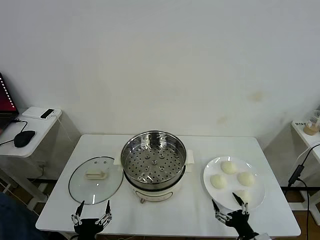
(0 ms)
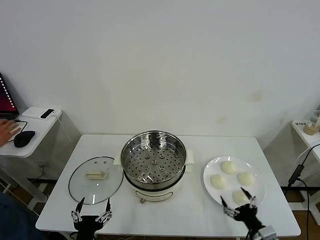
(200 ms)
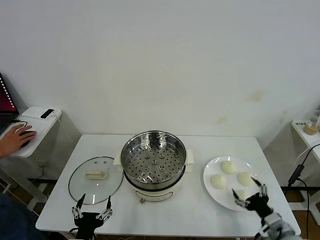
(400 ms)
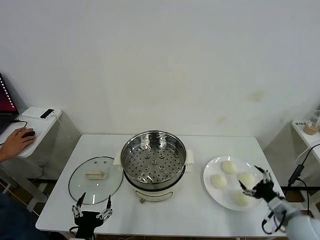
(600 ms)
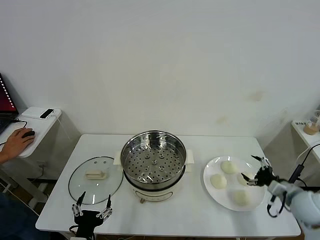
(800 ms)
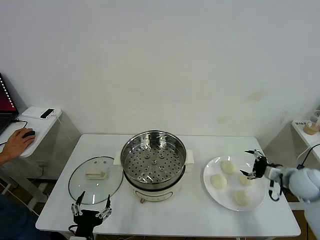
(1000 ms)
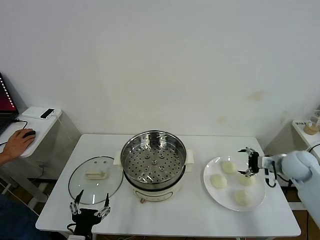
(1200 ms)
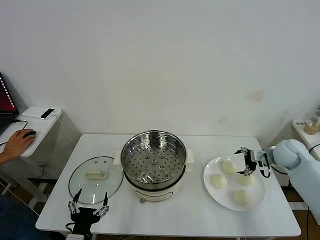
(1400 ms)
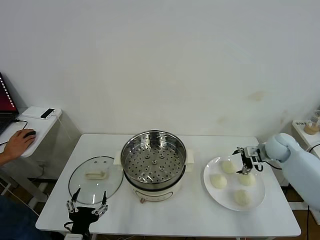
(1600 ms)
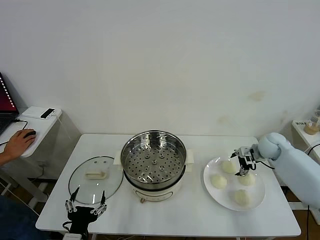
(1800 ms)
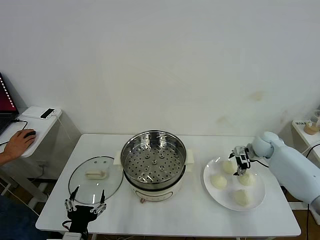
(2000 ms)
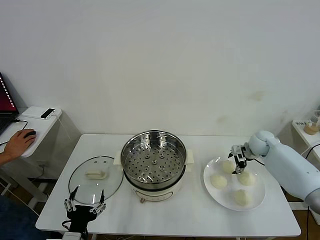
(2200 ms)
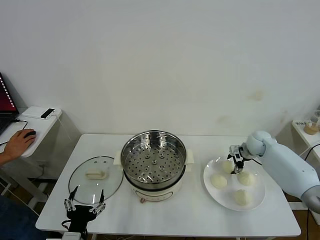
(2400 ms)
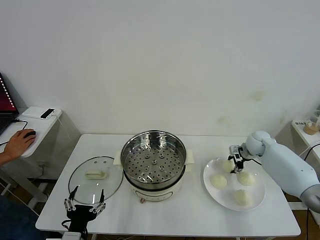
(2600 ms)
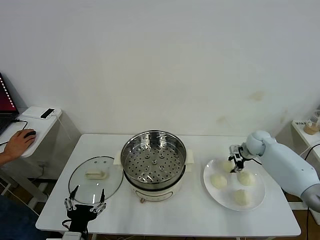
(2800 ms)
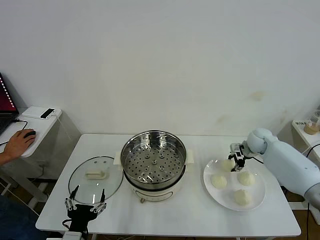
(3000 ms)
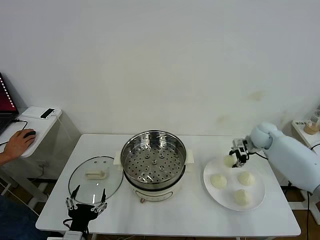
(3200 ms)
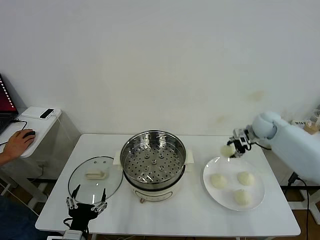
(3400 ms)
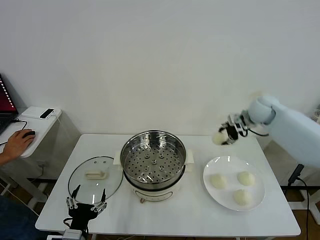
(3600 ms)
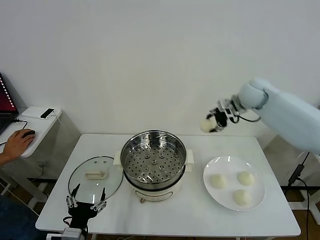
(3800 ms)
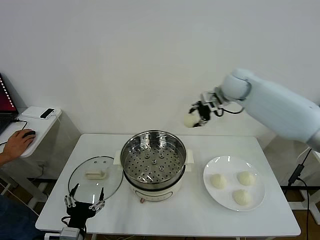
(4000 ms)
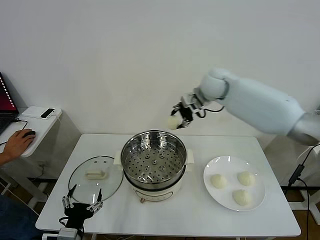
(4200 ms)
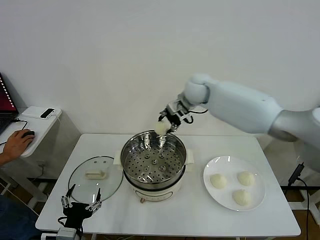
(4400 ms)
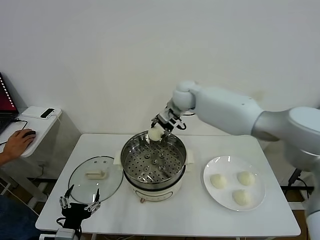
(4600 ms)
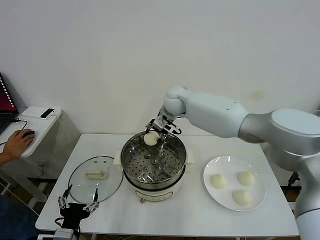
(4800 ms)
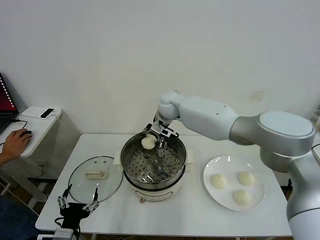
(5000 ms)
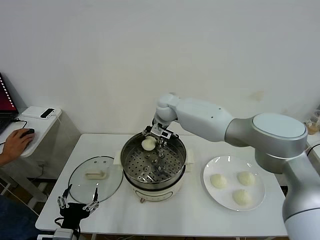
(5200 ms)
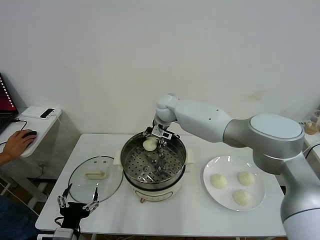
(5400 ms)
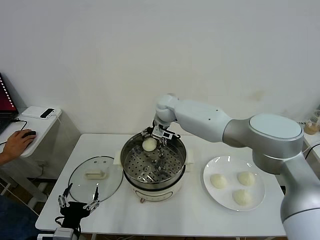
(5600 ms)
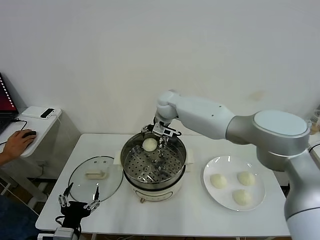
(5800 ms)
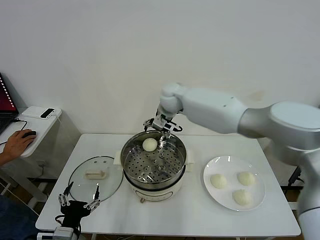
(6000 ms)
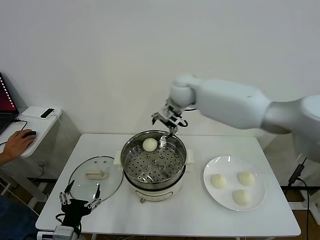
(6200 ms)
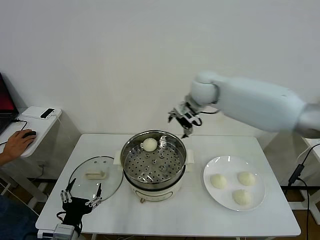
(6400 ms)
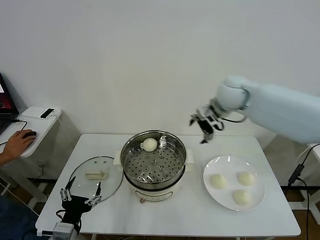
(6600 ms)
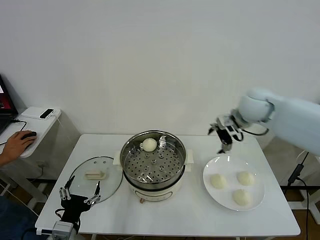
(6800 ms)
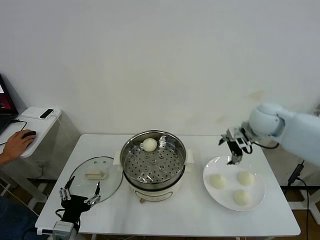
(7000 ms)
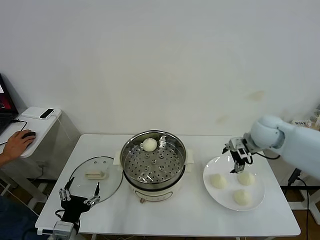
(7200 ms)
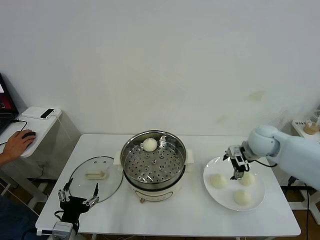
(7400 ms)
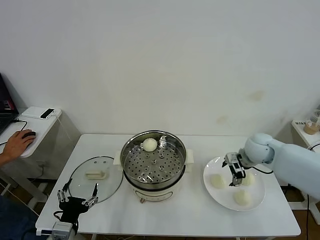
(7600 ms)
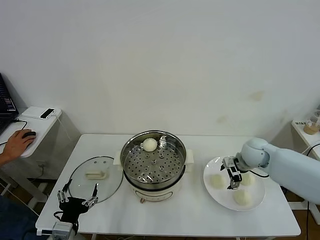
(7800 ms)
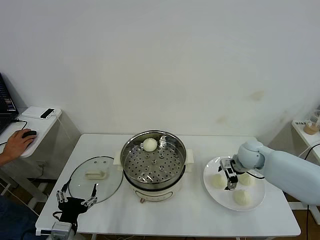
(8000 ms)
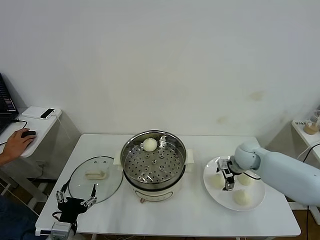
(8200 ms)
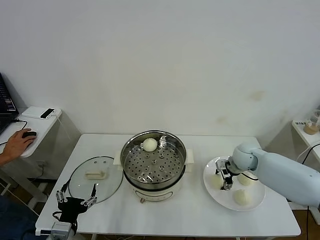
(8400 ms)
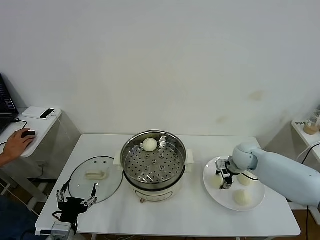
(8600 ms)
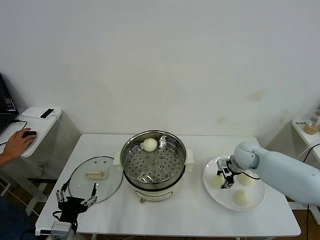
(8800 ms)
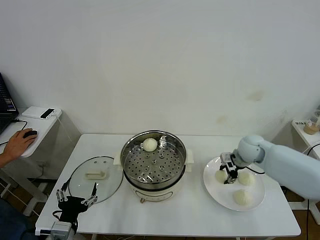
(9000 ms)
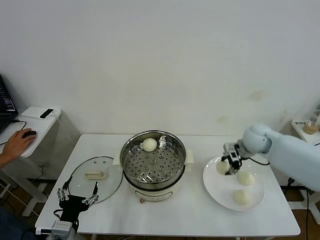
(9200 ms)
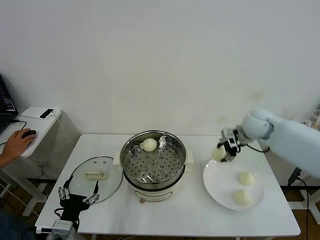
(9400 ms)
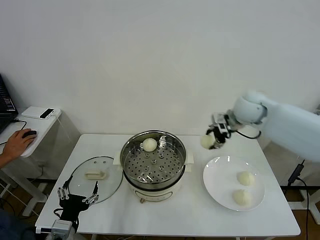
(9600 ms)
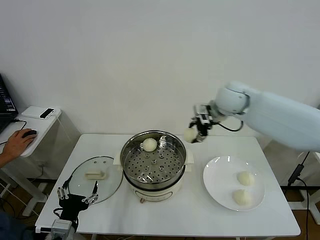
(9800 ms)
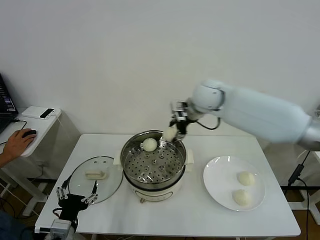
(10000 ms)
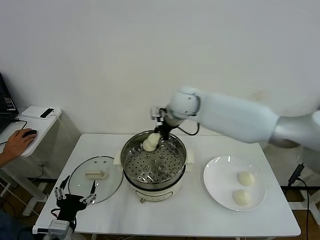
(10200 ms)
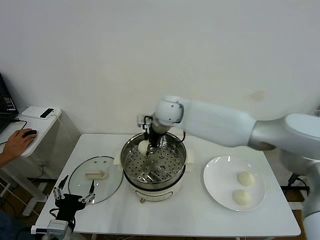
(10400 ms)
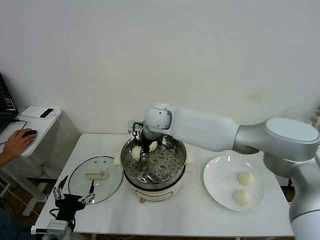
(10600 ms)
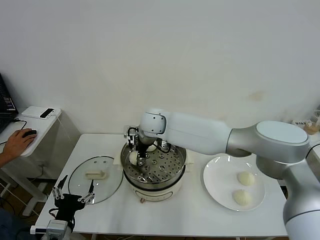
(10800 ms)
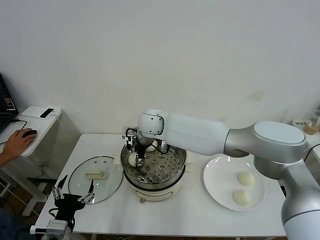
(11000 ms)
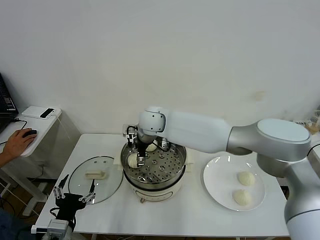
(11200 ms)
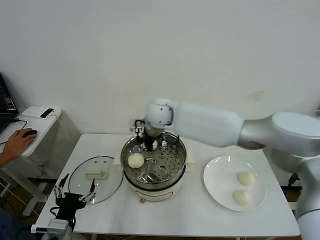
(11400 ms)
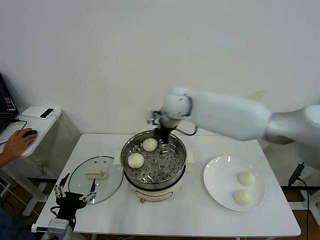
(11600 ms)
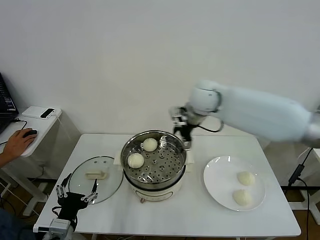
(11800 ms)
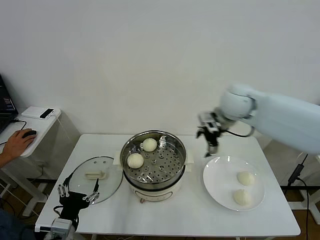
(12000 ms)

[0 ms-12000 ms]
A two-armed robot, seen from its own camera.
Task of the whole recording: take steamed baozi put them in steamer then cover it.
Step, 0 ms to 2800 ms: Grasp the baozi in the plate with right gripper.
Step, 3000 ms to 5600 ms: Place the baozi on the steamer with right gripper.
Step, 5800 ms to 8600 ms: Grasp the baozi in the plate with right gripper.
Step, 8800 ms to 11200 ms: Place the baozi on the steamer with right gripper.
1600 ms to 3000 ms: The right gripper goes roughly 5 cm forward, and closes its fingers.
3000 ms to 4400 ms: The right gripper shifts some 35 cm to the left and upward.
4400 ms to 6000 ms: The right gripper heads to the left, covering some 10 cm, and opens.
6000 ms to 7600 ms: The right gripper travels to the right and backward by roughly 30 cm.
7600 ms to 9000 ms: The right gripper closes.
9000 ms to 10400 ms: The right gripper goes roughly 35 cm to the left and upward.
10400 ms to 12000 ms: The right gripper is displaced to the right by roughly 20 cm, and opens.

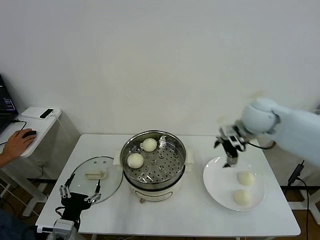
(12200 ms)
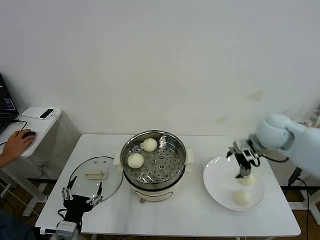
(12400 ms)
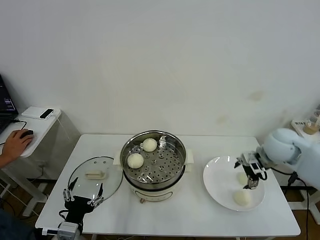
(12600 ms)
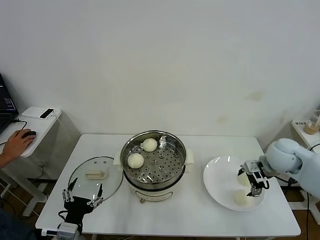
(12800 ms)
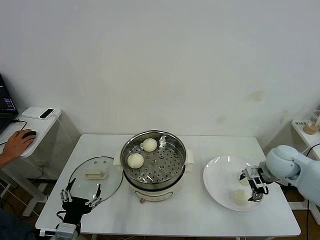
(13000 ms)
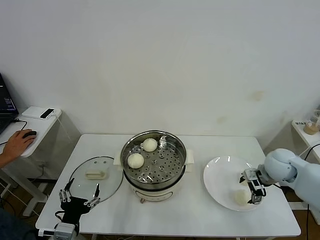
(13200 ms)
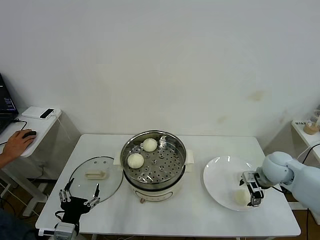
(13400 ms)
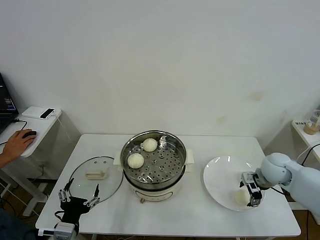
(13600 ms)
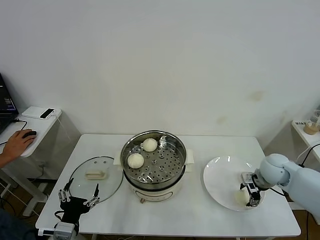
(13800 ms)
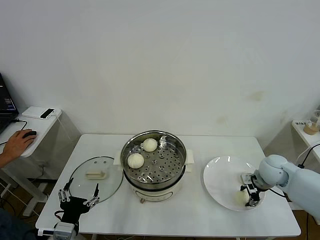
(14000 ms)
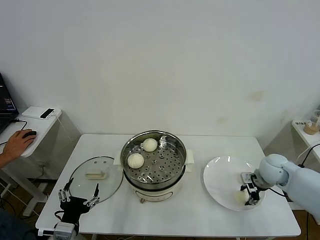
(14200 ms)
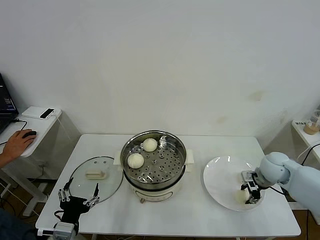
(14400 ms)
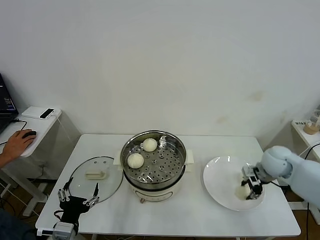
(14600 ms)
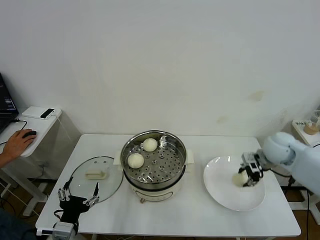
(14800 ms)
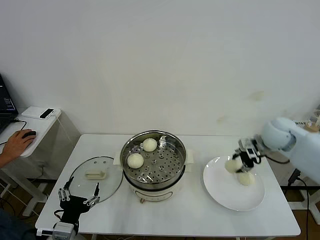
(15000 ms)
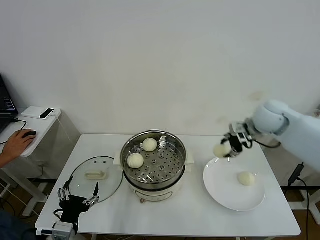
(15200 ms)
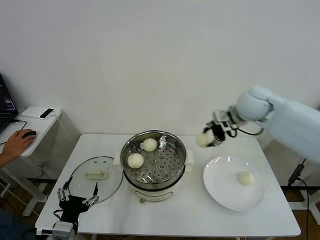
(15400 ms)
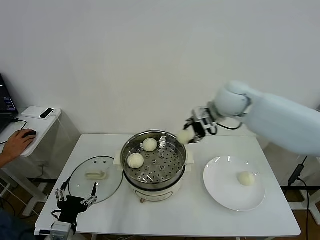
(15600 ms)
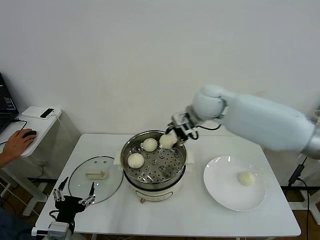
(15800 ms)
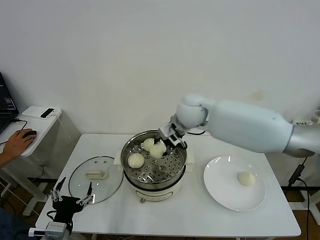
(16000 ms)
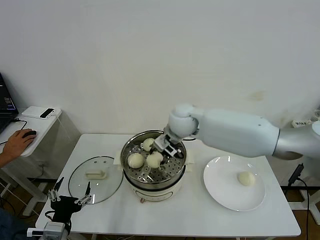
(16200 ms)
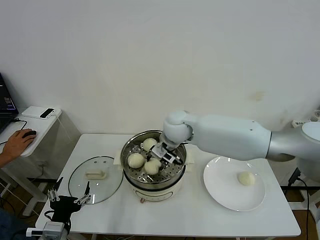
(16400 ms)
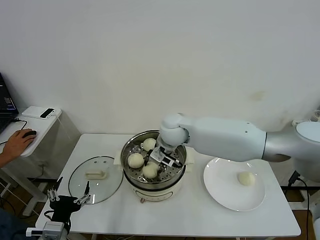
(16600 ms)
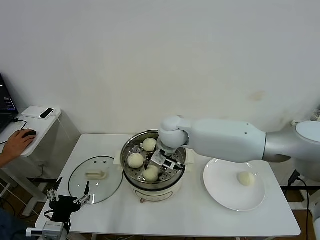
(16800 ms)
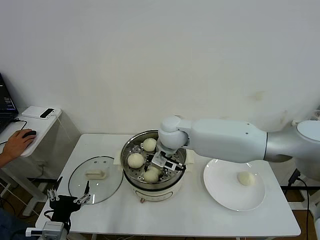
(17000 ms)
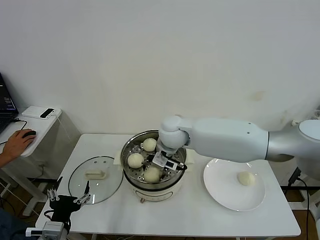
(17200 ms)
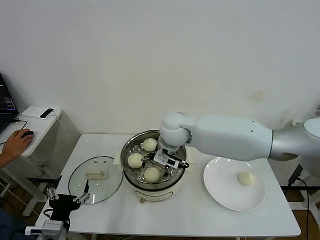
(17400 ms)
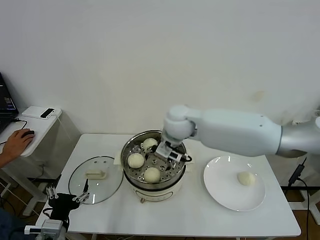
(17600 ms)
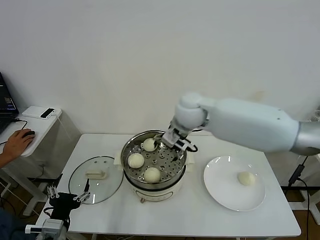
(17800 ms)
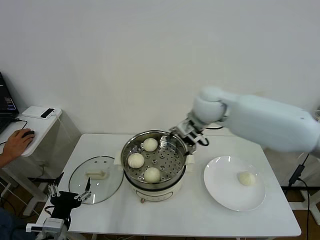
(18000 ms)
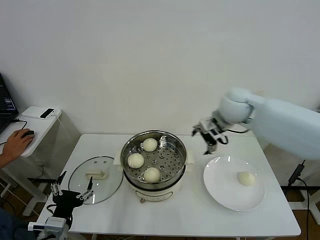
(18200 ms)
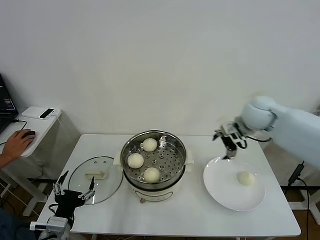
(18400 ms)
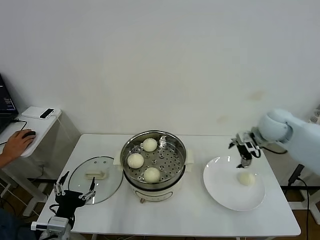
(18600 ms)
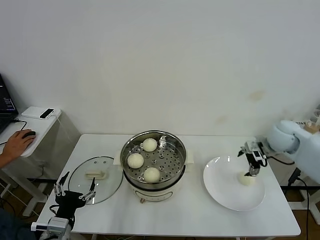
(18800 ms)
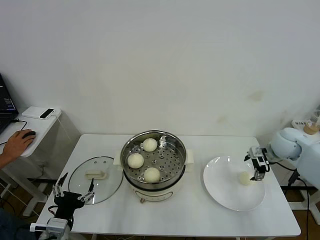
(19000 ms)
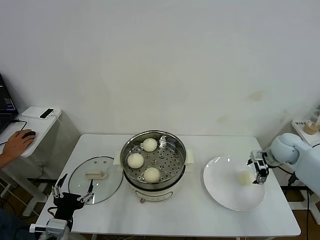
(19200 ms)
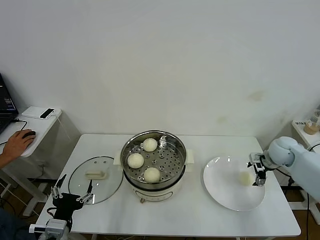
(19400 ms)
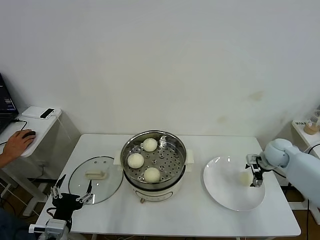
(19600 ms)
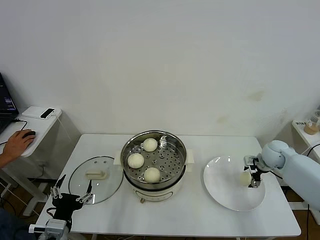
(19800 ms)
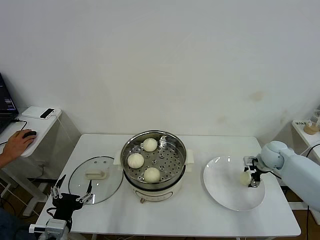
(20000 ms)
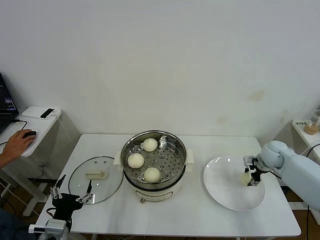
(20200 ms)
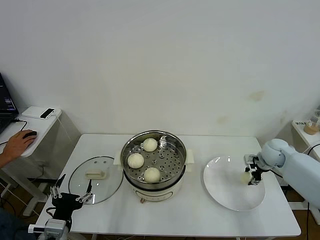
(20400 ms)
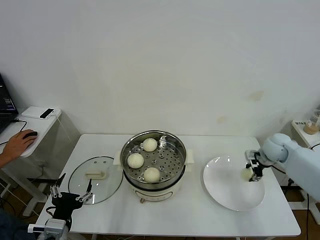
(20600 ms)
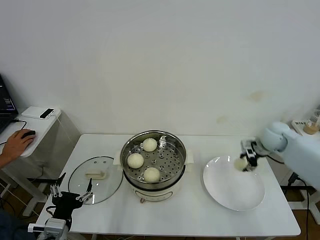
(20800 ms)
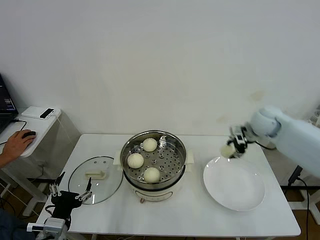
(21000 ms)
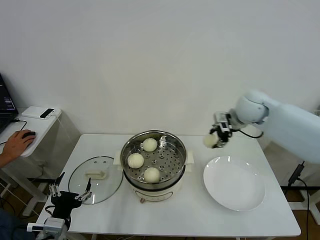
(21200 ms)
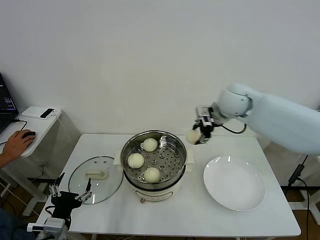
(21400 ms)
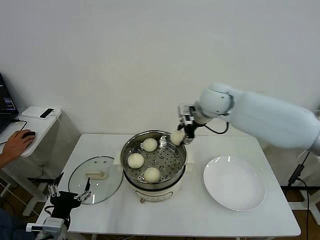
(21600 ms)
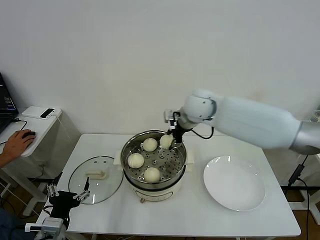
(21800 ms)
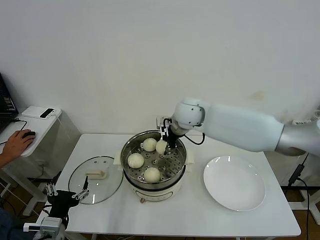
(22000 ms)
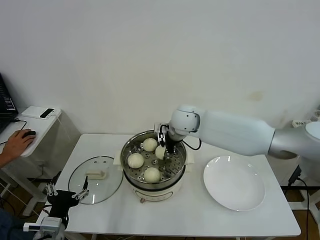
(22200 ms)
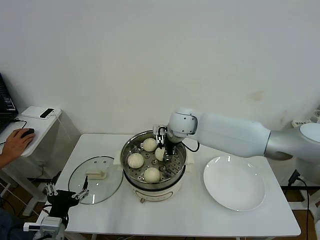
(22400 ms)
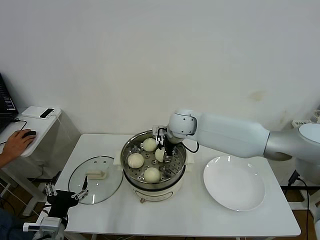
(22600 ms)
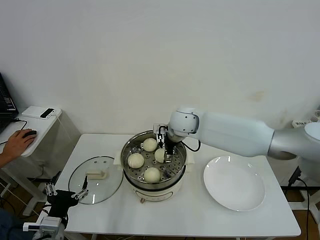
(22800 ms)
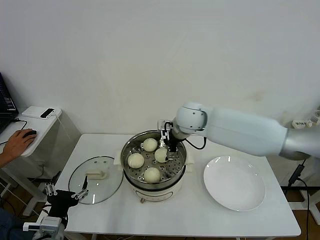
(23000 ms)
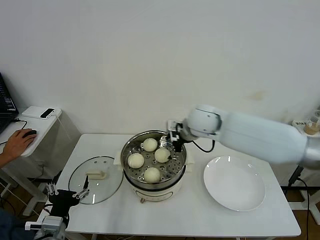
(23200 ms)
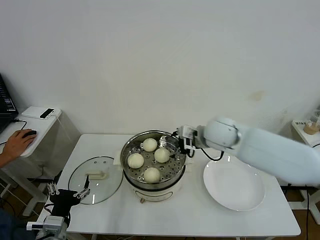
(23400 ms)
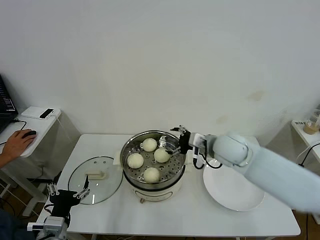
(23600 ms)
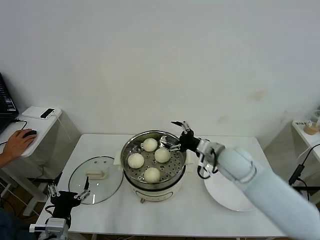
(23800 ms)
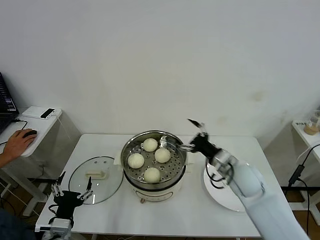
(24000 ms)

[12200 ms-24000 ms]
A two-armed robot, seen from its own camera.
Task of the whole recording: take steamed baozi put them in steamer then cover it.
Step, 12200 ms to 14200 ms: Grasp the baozi in the plate with right gripper.
Step, 14400 ms to 17400 ms: Place the baozi on the steamer with right gripper.
Step, 17600 ms to 20400 ms: Grasp the baozi in the plate with right gripper.
Step, 20600 ms to 22800 ms: Place the baozi on the steamer with right gripper.
12200 ms to 13600 ms: The right gripper heads downward and to the right, covering about 20 cm.
13600 ms to 15200 ms: The right gripper shifts about 15 cm upward and forward, and closes its fingers.
15200 ms to 16600 ms: The right gripper is displaced to the left by roughly 30 cm.
16600 ms to 18200 ms: The right gripper moves to the right and upward, about 20 cm, and opens its fingers.
18200 ms to 19600 ms: The right gripper heads to the right and downward, covering some 30 cm.
19600 ms to 21000 ms: The right gripper shifts some 15 cm upward and to the left, and closes up.
21000 ms to 22600 ms: The right gripper moves to the left, approximately 30 cm.
22600 ms to 24000 ms: The right gripper moves to the right, backward and downward, roughly 25 cm, and opens its fingers.